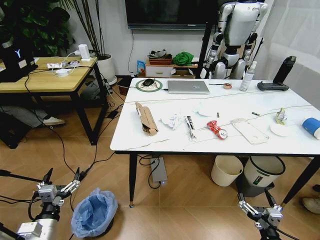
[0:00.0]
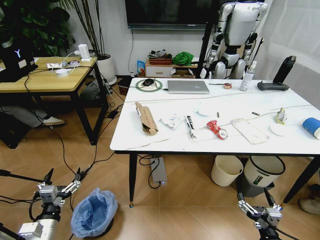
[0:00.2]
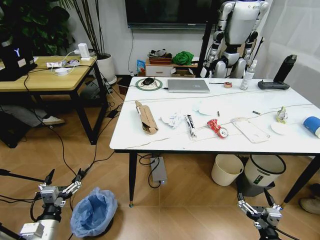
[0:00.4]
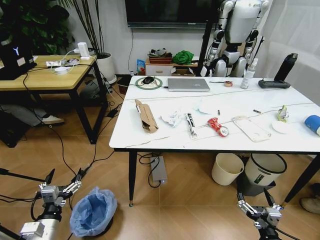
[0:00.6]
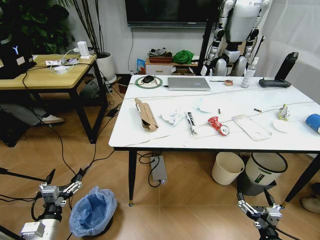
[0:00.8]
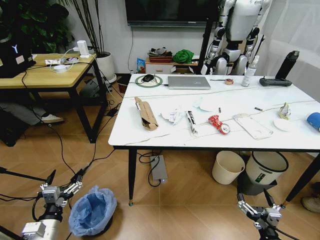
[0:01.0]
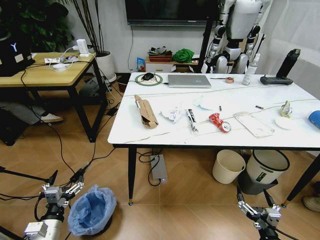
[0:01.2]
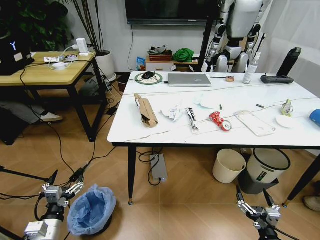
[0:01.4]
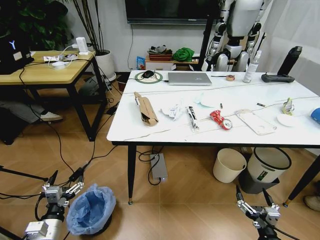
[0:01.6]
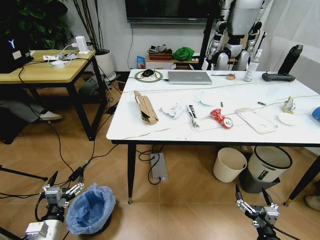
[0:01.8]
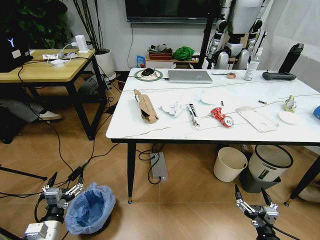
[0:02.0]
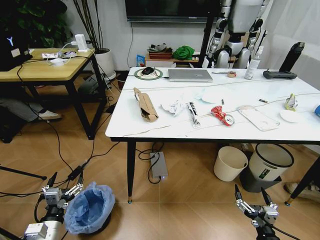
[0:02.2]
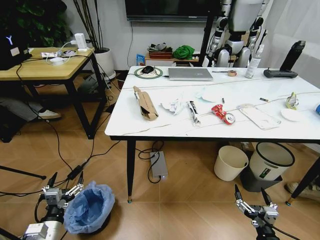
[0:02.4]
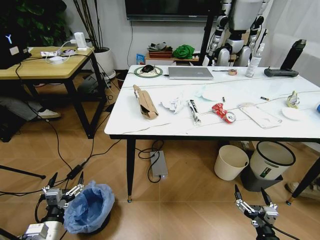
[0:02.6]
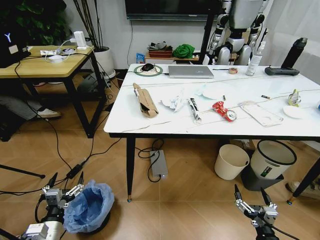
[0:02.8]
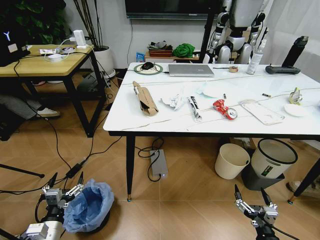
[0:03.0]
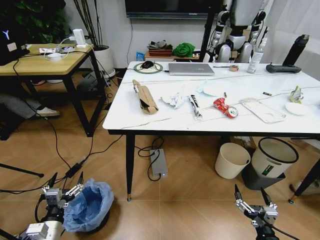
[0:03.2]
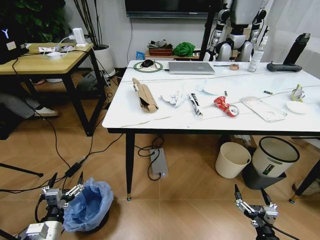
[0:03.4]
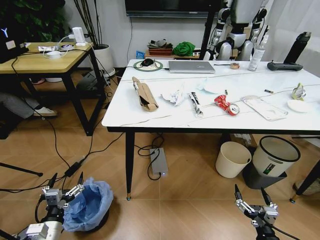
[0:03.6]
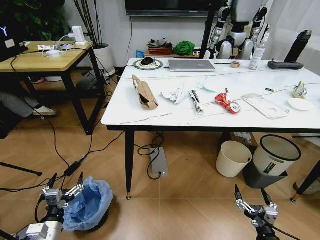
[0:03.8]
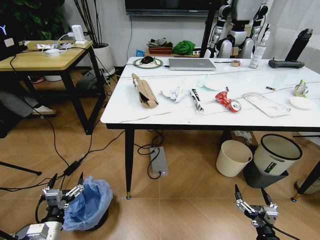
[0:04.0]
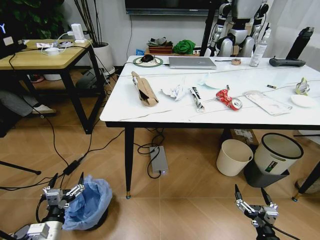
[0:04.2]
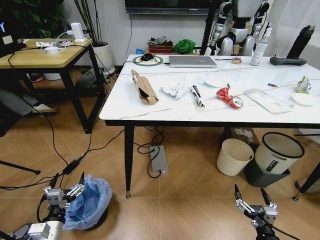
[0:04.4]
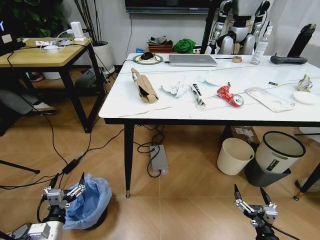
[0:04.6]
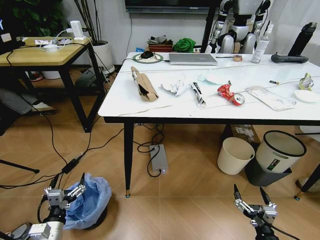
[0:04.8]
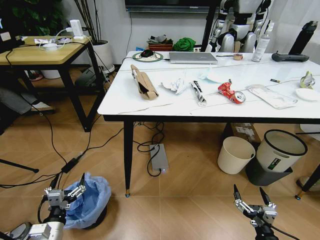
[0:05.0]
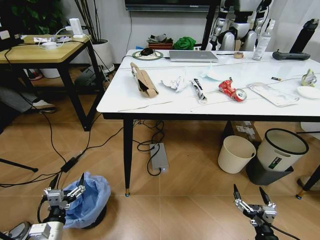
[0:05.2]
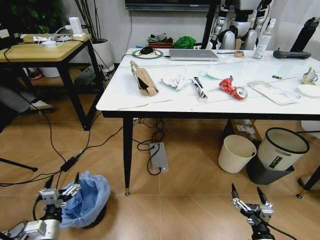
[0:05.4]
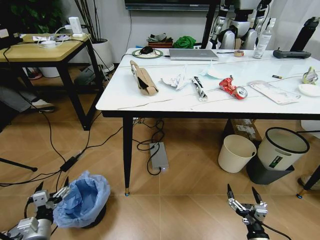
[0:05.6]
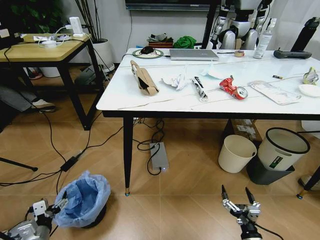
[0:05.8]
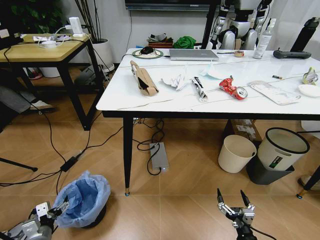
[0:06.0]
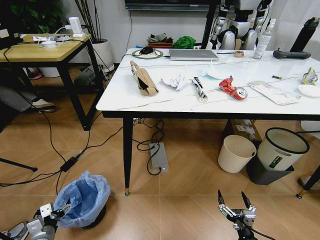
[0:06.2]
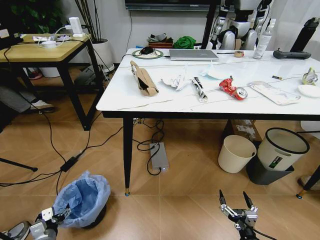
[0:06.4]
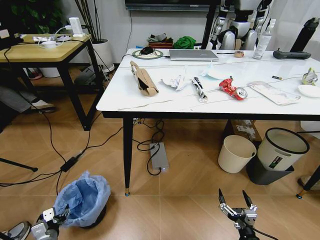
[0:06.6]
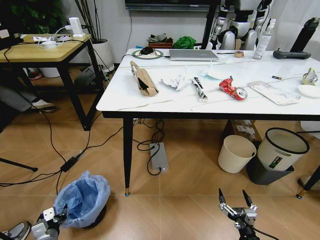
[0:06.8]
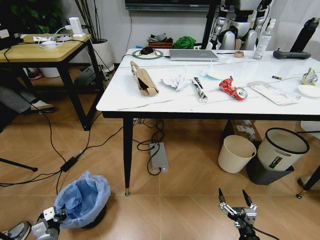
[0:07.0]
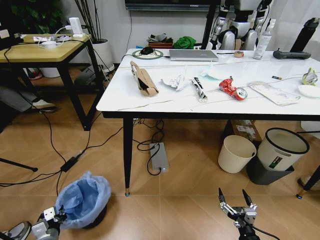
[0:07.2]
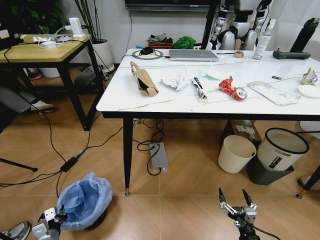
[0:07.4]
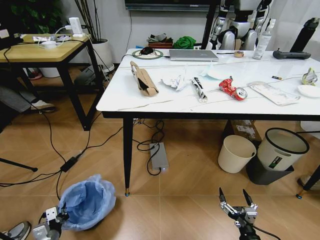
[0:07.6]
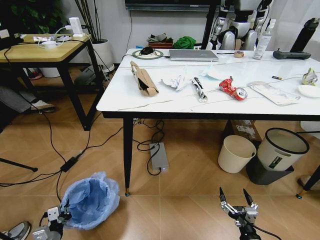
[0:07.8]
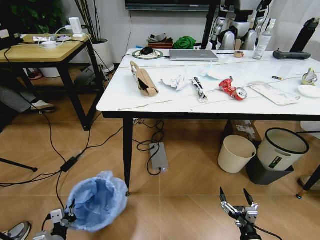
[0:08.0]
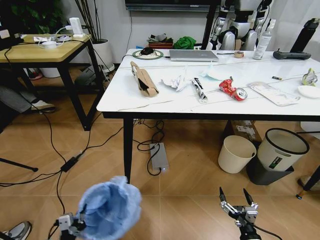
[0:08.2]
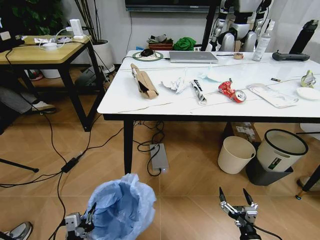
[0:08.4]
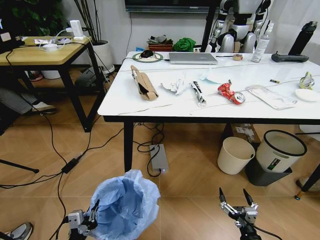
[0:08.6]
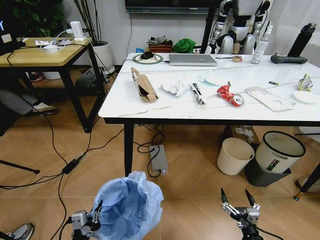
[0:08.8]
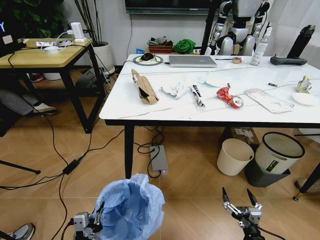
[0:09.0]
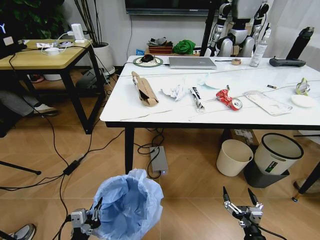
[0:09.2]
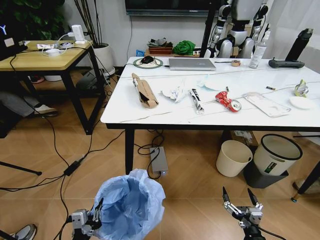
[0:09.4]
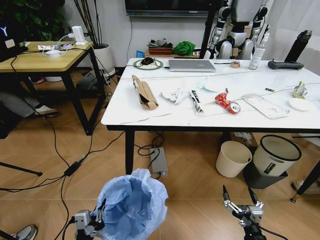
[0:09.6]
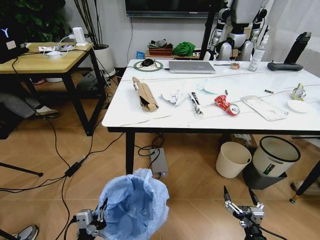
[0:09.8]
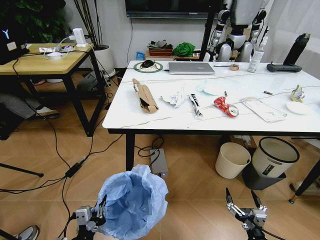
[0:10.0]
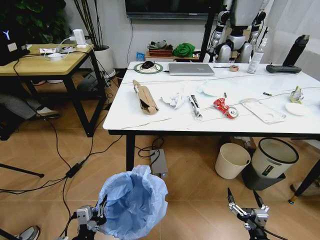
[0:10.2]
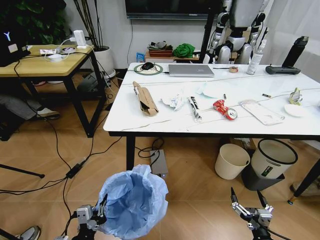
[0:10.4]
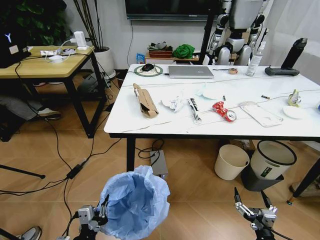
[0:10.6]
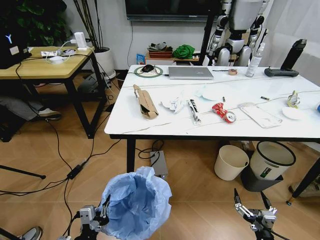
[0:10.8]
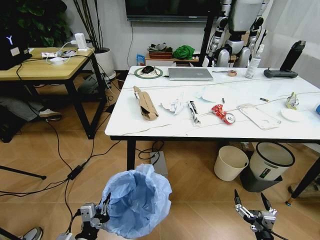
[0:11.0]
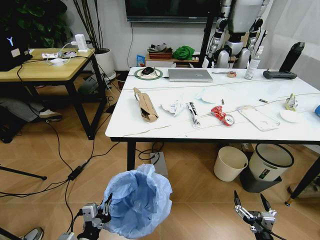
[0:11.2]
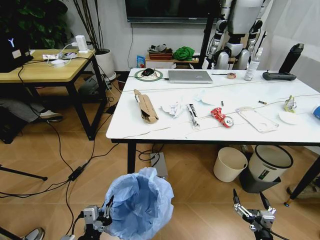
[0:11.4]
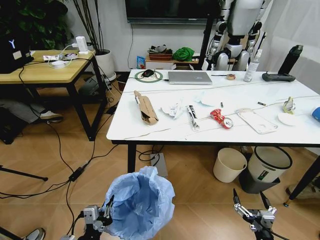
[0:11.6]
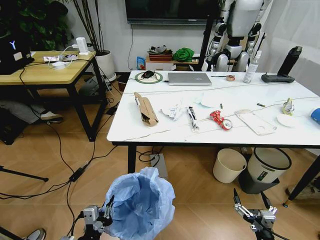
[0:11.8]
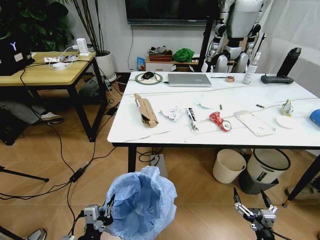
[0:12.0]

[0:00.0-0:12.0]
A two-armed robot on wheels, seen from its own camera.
Task of the whole recording: Pick up the trash bin and place the trash from the table into it.
0:04.4 to 0:06.0: The left gripper travels to the left and downward by approximately 10 cm; the right gripper changes place by about 5 cm.
0:06.0 to 0:07.6: The left gripper closes.
0:07.6 to 0:09.0: The left gripper heads to the right, upward and backward, covering about 20 cm.

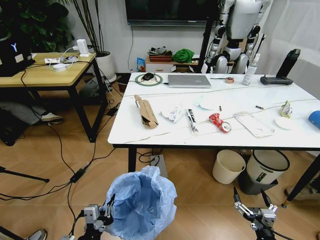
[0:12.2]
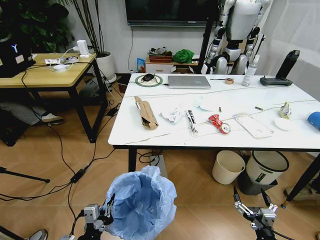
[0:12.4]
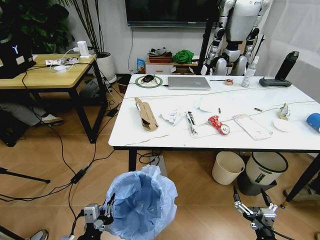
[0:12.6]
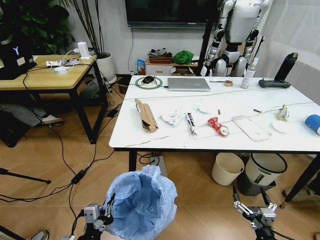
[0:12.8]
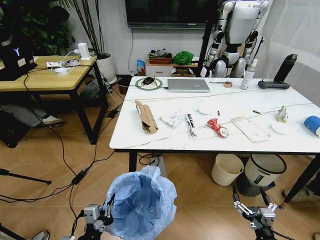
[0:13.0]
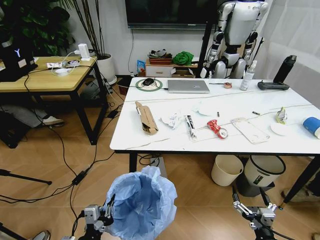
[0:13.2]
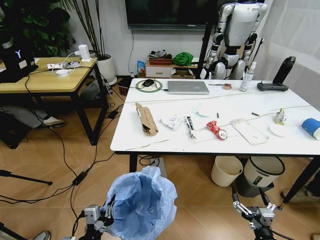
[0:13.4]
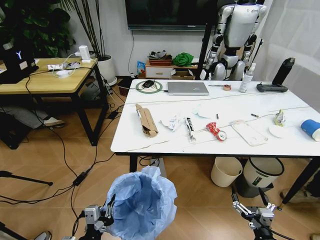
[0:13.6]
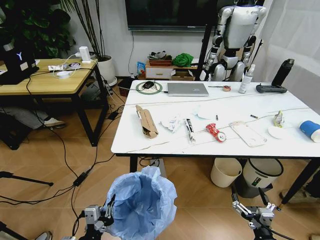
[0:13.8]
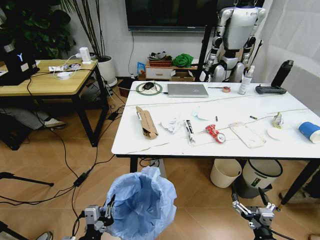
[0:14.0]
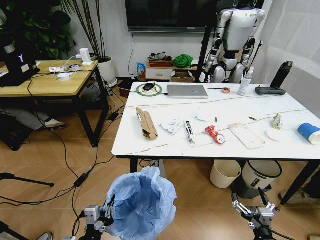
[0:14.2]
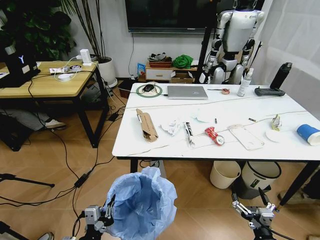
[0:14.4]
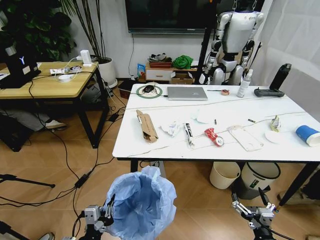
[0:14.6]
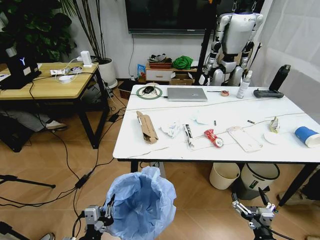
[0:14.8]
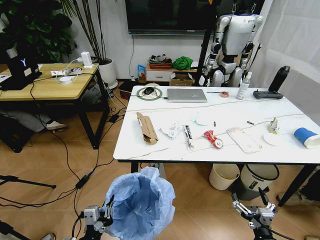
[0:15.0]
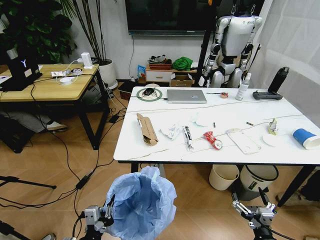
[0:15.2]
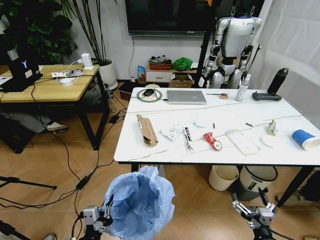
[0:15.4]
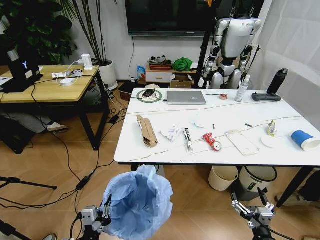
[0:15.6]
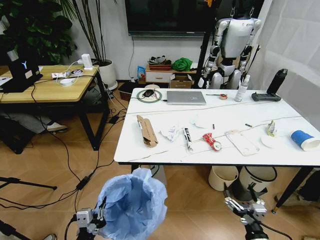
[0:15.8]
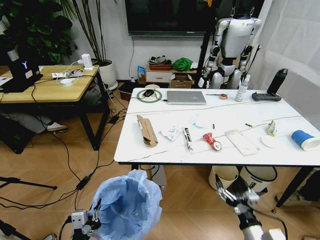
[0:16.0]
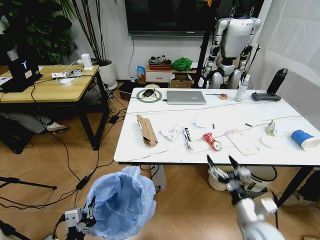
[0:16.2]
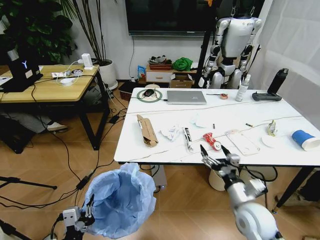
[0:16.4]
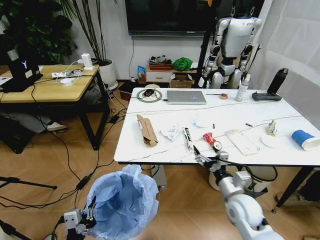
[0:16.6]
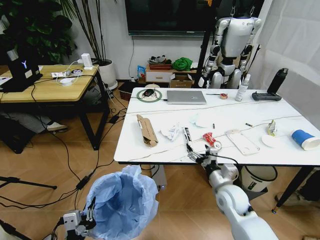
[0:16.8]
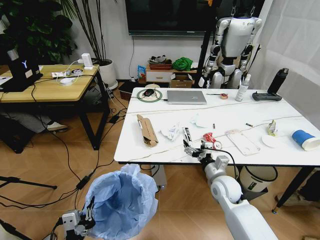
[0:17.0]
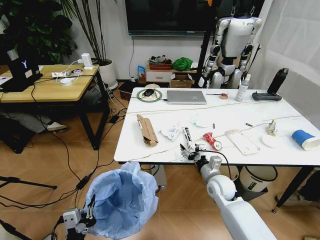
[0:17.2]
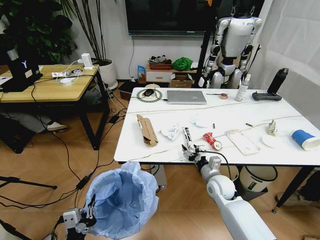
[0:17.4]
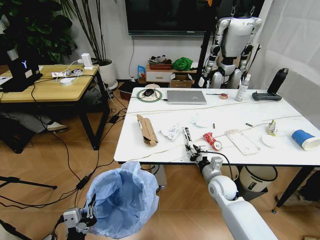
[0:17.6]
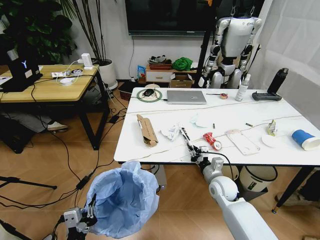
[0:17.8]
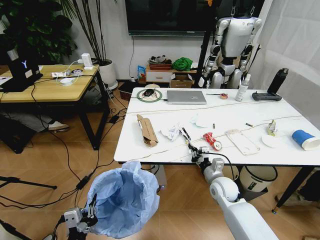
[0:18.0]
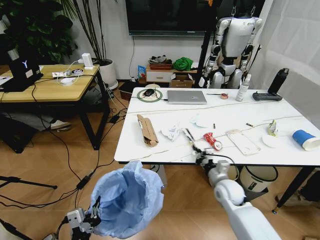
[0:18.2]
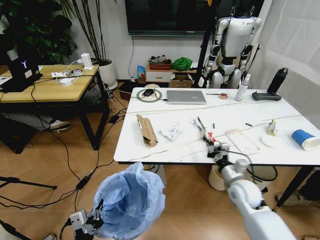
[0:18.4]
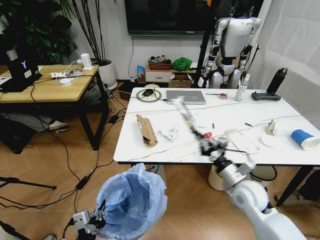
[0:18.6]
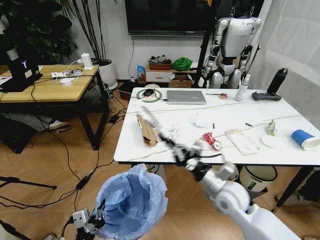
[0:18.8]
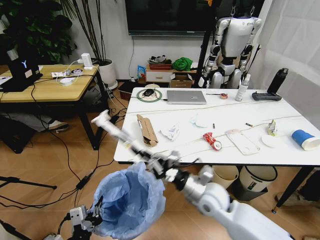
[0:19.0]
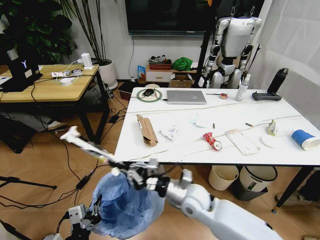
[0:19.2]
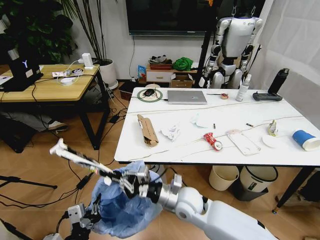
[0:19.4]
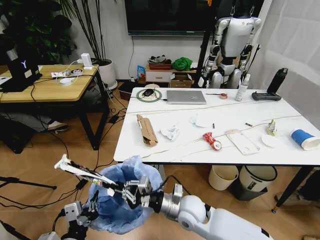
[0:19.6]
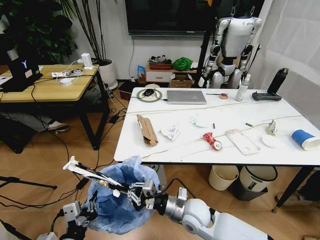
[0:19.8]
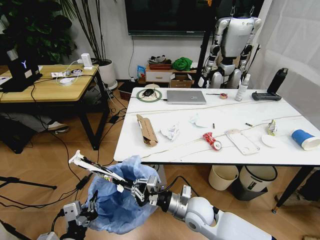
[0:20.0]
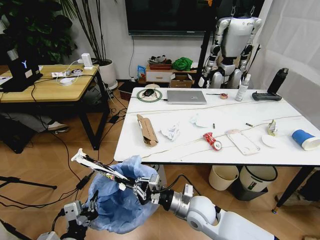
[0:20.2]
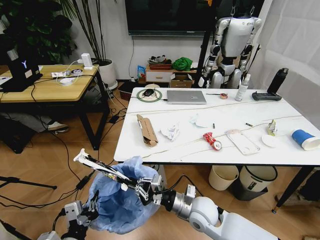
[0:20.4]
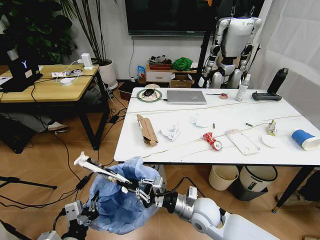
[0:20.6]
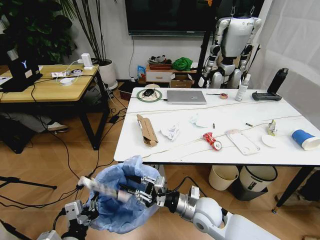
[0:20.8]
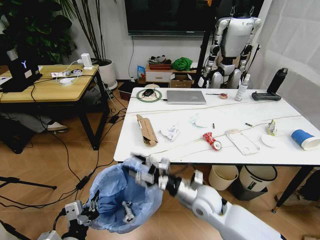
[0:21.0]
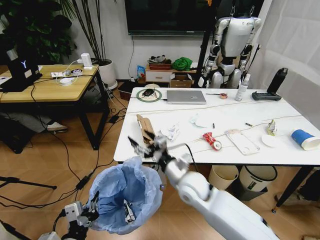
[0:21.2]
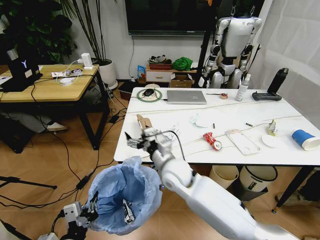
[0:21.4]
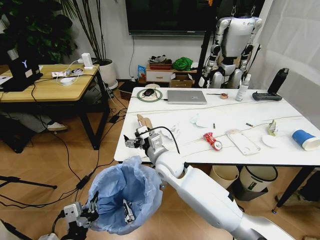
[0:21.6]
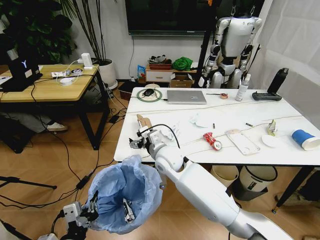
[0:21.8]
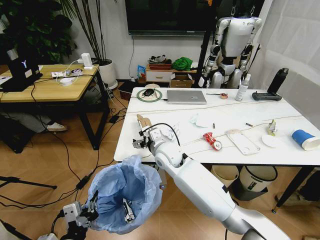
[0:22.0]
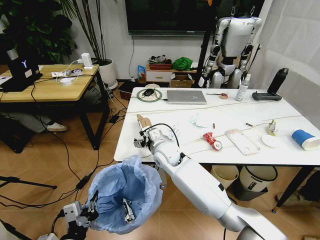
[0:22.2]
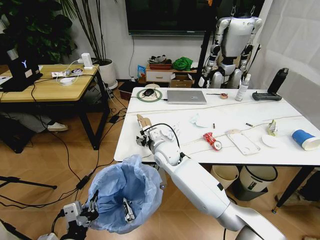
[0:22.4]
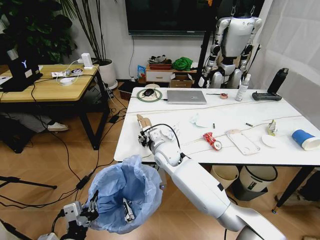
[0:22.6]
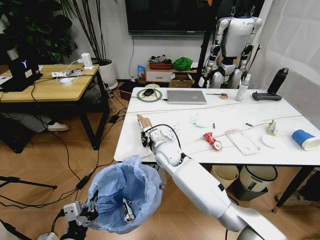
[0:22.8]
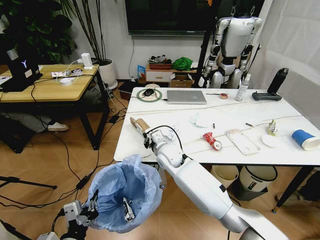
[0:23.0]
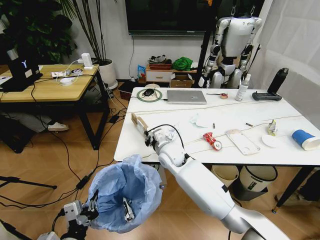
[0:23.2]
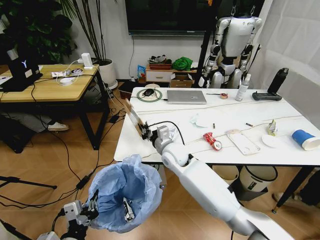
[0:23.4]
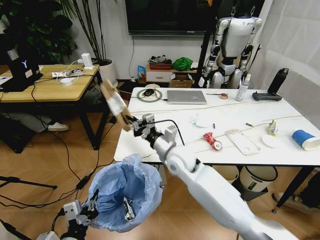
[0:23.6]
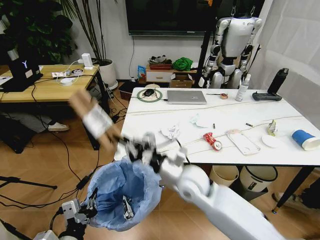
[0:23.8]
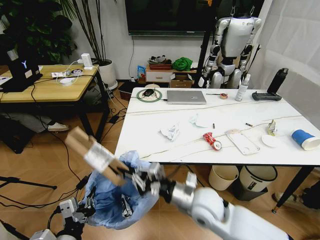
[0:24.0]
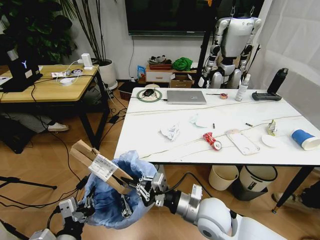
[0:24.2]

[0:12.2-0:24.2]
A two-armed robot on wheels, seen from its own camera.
Task of the whole recording: Pick up the trash bin and place the trash from the table into it.
0:15.2 to 0:16.6: The right gripper is displaced forward, upward and to the left by some 20 cm.
0:16.6 to 0:18.2: The right gripper moves forward, approximately 5 cm, and closes up.
0:18.2 to 0:19.8: The right gripper goes approximately 15 cm to the left and backward.
0:19.8 to 0:21.2: The right gripper travels upward and forward by approximately 10 cm, and opens.
0:21.2 to 0:22.6: The right gripper moves forward and to the left, roughly 15 cm.
0:22.6 to 0:24.2: The right gripper heads backward and to the right, covering about 25 cm, and closes up.
